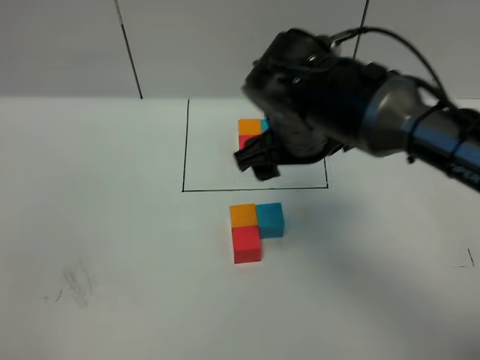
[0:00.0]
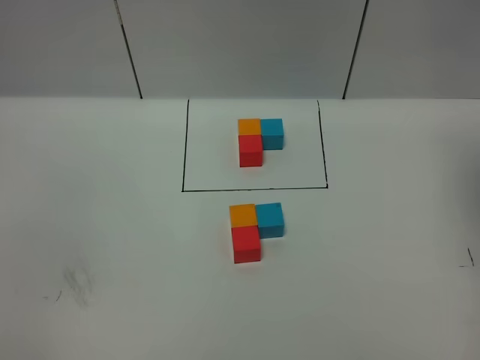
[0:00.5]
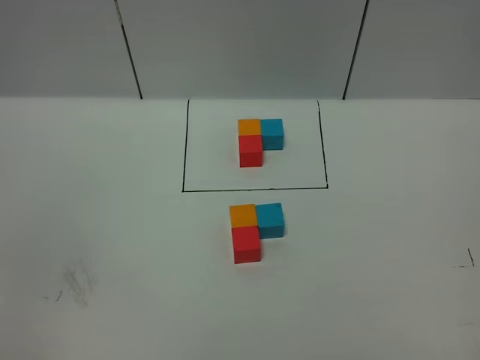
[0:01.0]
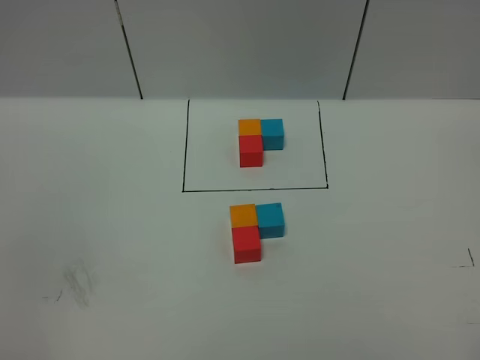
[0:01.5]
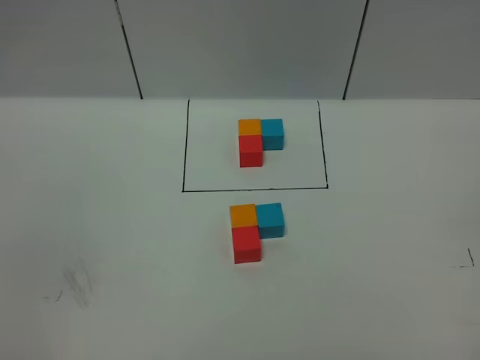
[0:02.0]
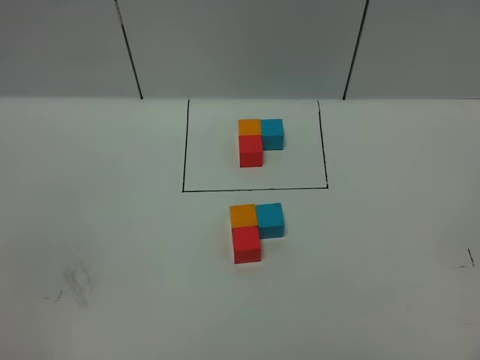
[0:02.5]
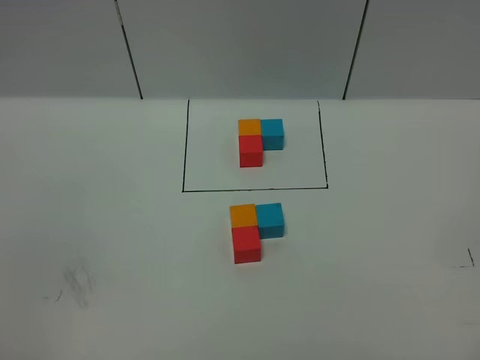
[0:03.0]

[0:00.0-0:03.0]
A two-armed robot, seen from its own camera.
Task of the whole recording: According to the building block template in front, assemble the scattered blocks together.
0:00.0 to 0:01.5: The right gripper travels backward and to the right by approximately 40 cm.
